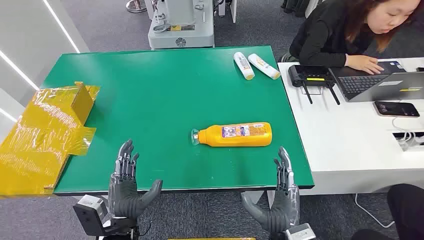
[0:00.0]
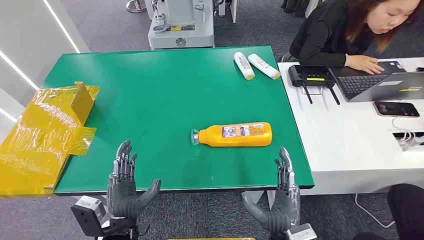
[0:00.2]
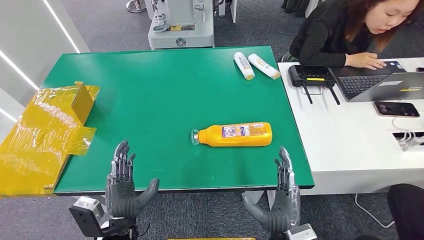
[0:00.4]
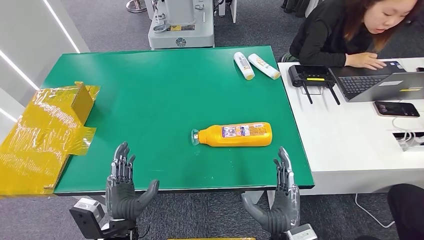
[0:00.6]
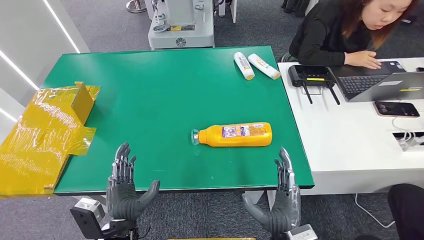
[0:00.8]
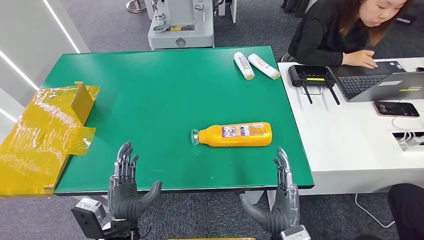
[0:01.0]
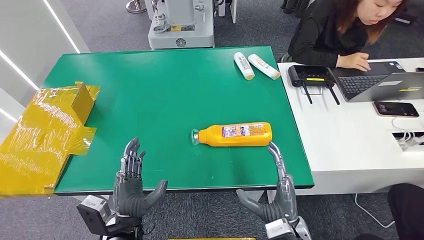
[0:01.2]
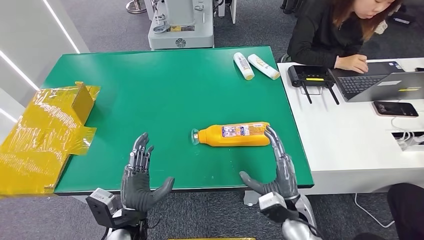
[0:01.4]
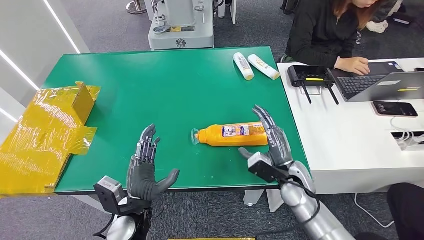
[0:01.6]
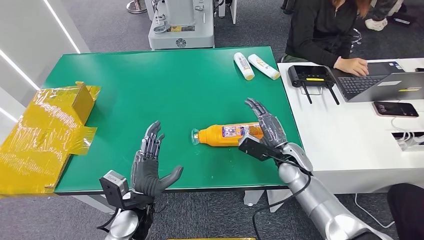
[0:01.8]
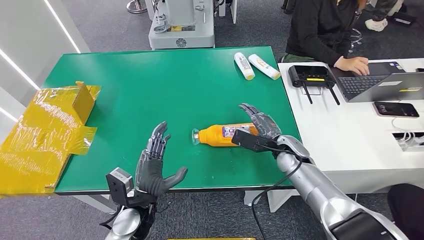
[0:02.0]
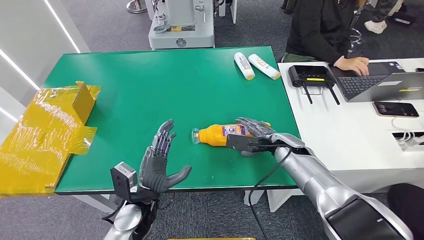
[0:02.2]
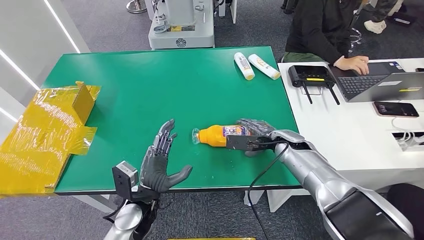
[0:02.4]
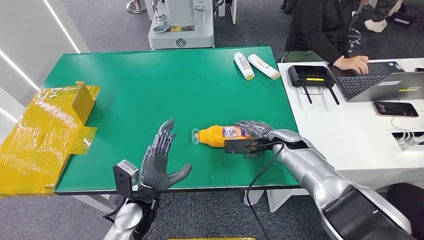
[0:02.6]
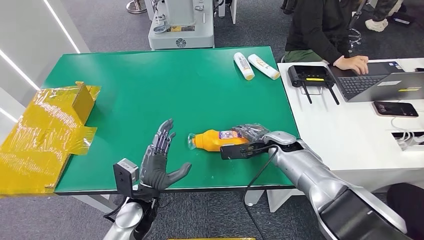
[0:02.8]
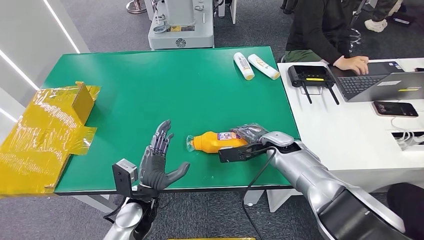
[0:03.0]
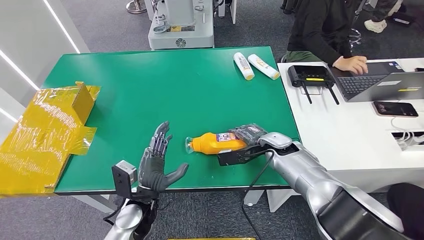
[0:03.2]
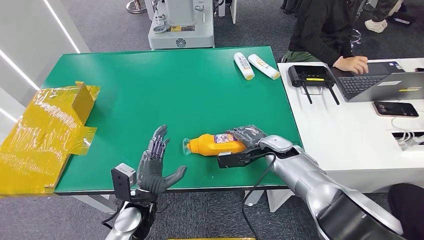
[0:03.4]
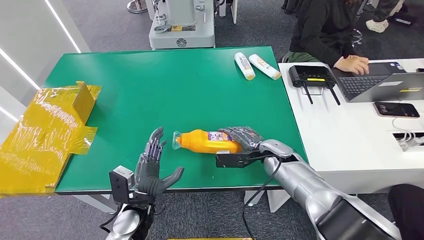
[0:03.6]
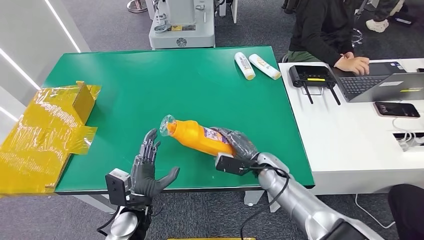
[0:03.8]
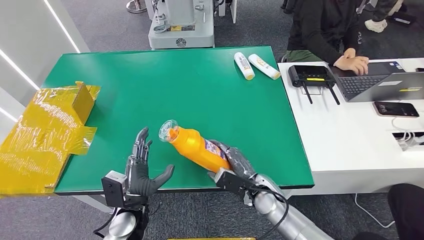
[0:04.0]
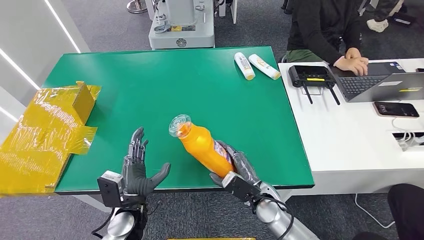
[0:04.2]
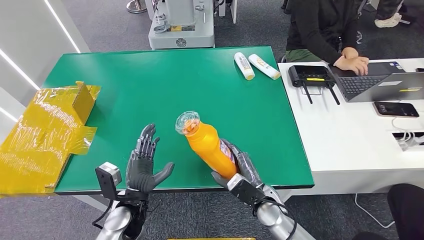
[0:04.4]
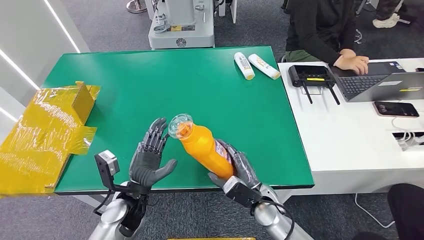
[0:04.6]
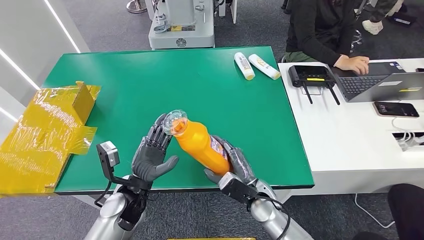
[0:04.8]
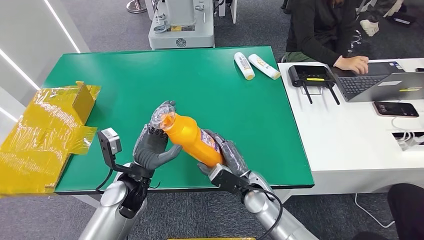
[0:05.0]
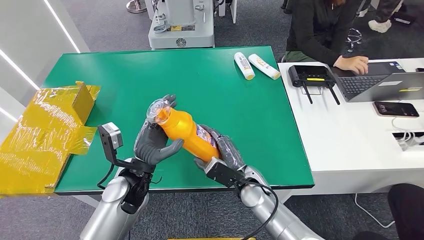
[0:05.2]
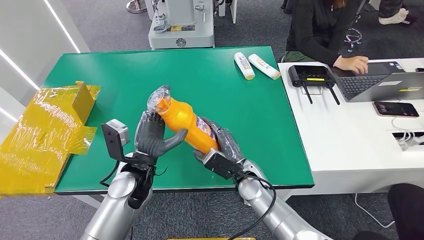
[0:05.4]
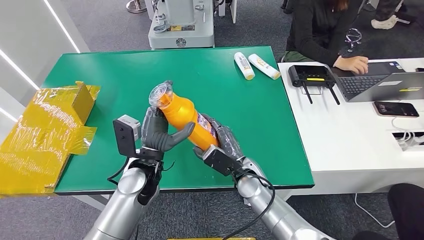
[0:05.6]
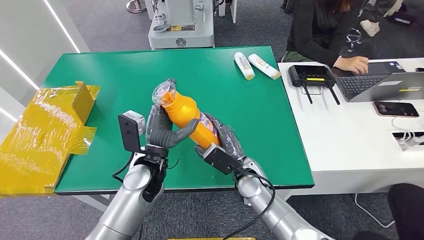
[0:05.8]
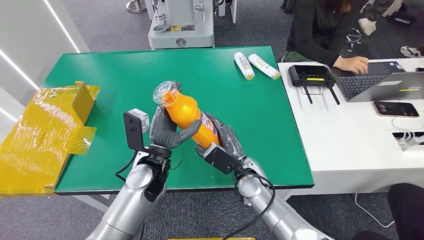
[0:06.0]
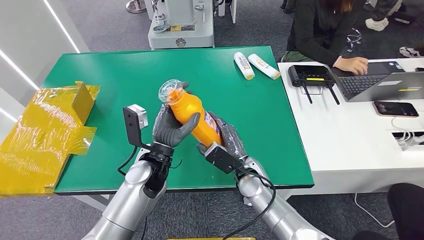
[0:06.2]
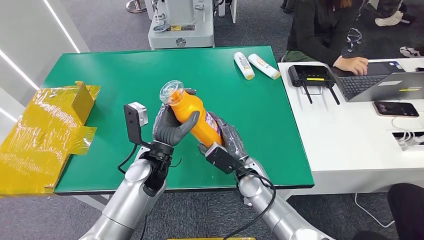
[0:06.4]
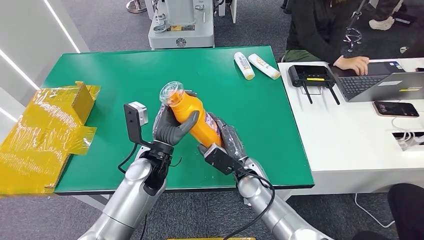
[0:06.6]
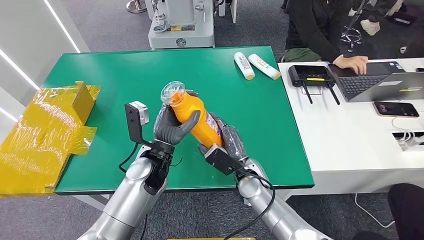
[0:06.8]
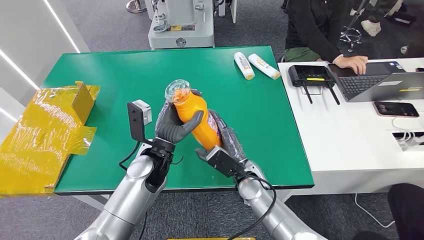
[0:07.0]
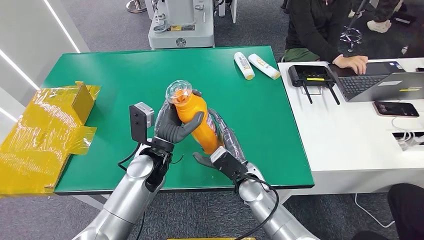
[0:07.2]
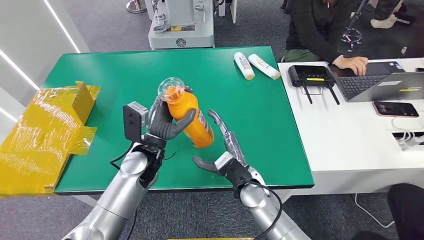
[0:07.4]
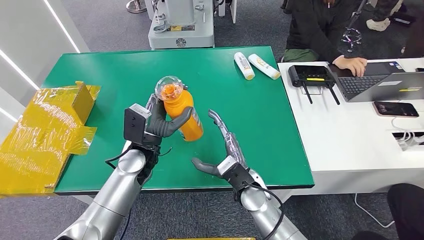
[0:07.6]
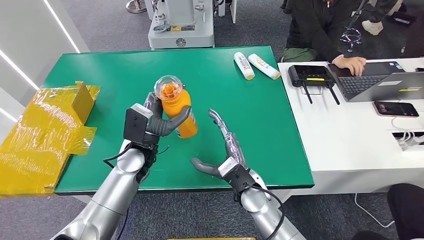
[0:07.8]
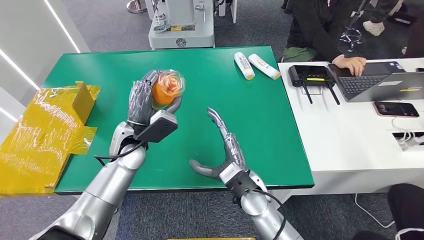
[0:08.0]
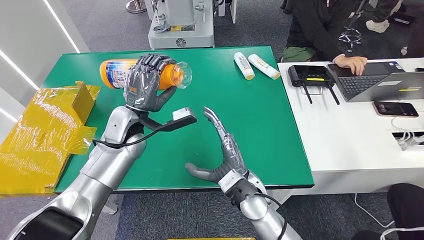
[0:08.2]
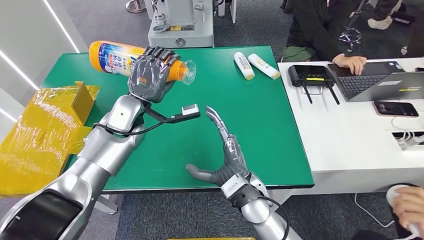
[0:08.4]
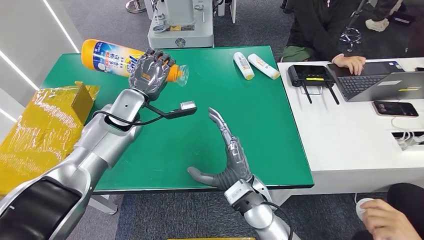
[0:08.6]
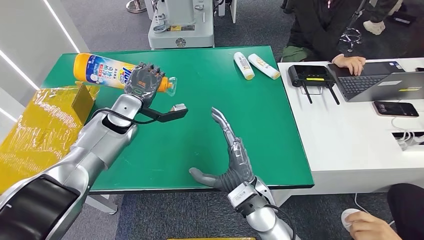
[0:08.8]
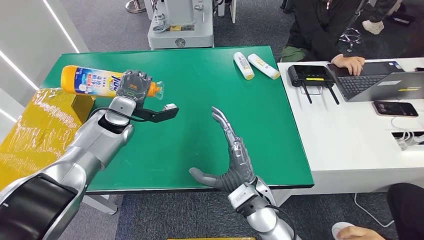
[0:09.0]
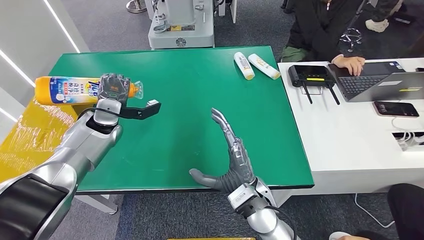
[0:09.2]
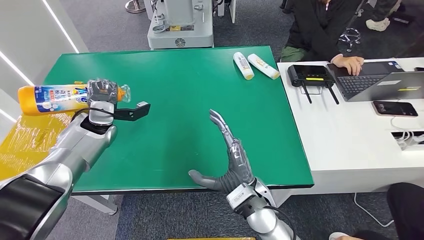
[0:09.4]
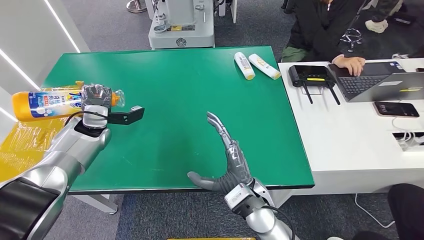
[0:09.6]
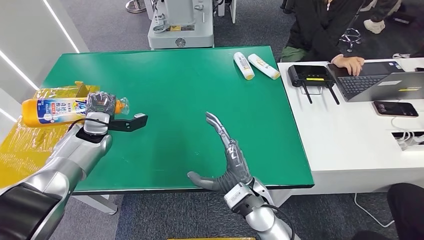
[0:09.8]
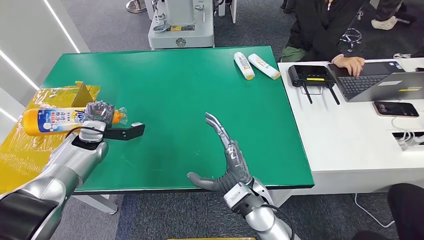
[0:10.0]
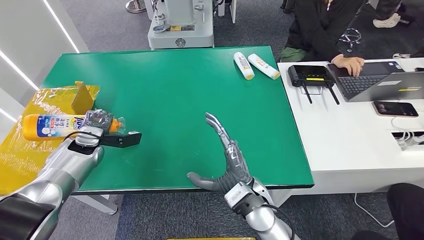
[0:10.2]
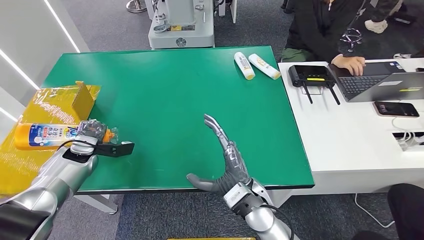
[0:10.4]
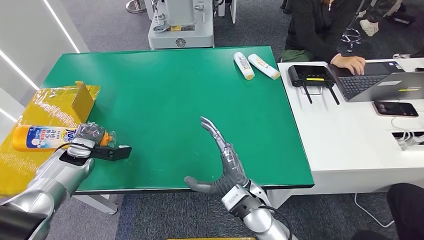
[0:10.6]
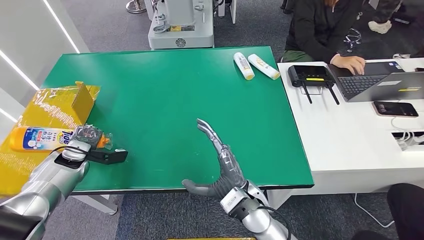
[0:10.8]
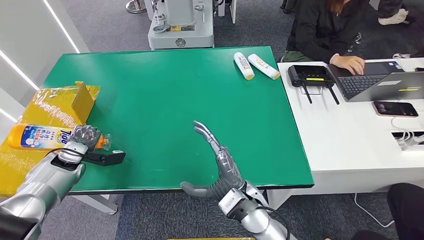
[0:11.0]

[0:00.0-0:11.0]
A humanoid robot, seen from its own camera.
Step, 0:00.0 to 0:04.2: Pick up the bottle from the table.
0:01.6 to 0:03.2: The right hand shifts about 10 cm forward.
0:03.2 to 0:04.8: The right hand travels backward, downward and to the left by about 15 cm.
0:04.8 to 0:06.2: The left hand is displaced forward, to the right and upward by some 10 cm. Meanwhile the right hand moves about 5 cm.
0:06.2 to 0:07.8: The left hand moves some 5 cm.
0:09.4 to 0:11.0: The left hand is displaced to the left, downward and backward by some 15 cm.

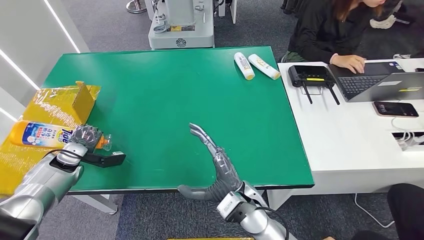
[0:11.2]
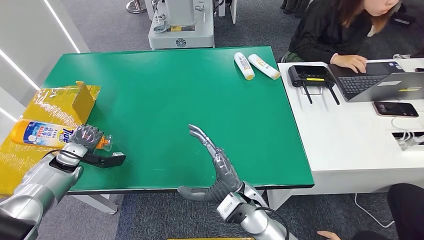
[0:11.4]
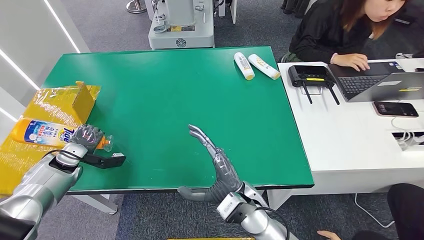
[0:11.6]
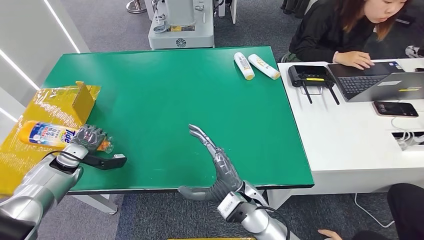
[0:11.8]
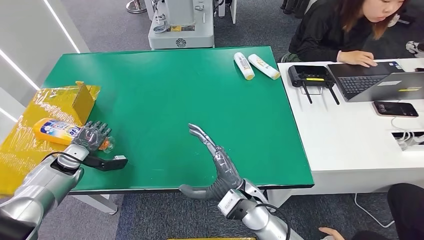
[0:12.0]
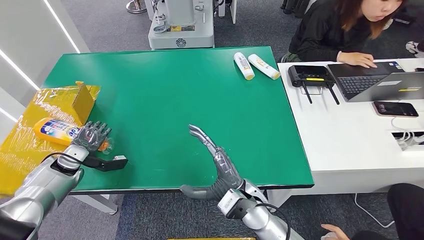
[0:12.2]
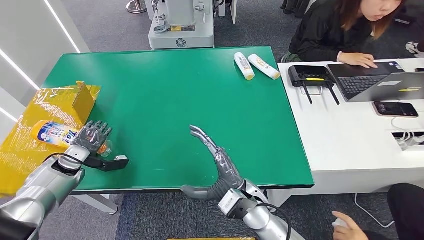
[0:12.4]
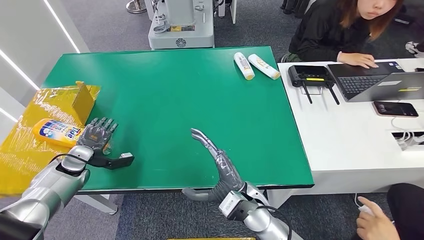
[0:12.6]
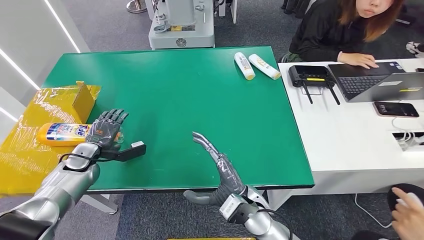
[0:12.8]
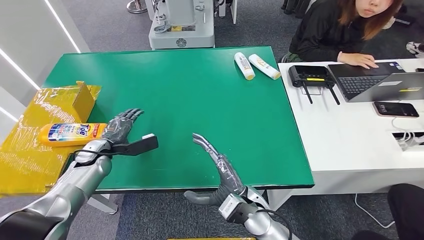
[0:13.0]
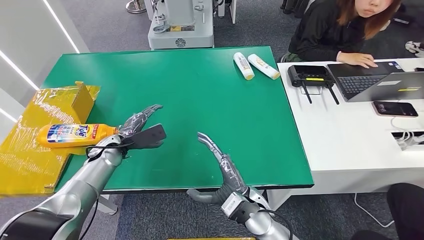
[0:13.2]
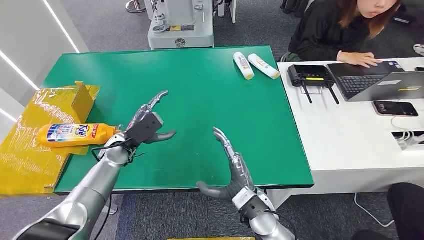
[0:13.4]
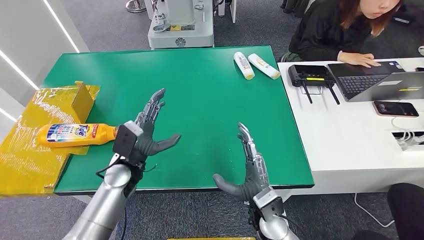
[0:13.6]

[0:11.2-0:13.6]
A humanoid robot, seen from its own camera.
Step, 0:11.2 to 0:13.6: Turn the bottle to the front side.
0:11.2 to 0:12.4: The hands make only small movements.
0:12.4 to 0:13.6: The right hand changes place by some 5 cm; the left hand travels to the right by about 20 cm.

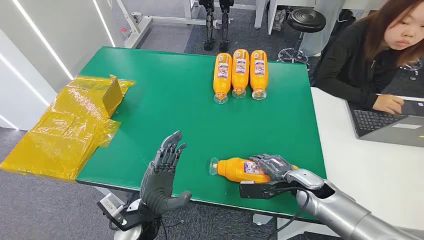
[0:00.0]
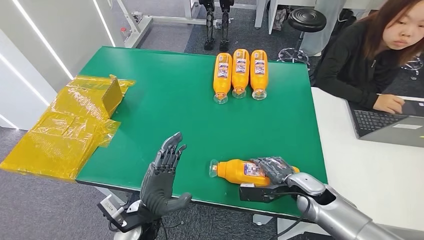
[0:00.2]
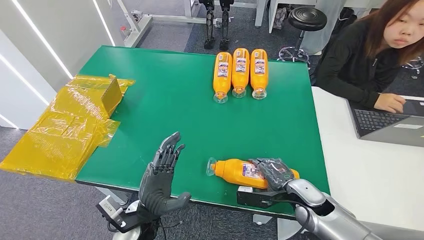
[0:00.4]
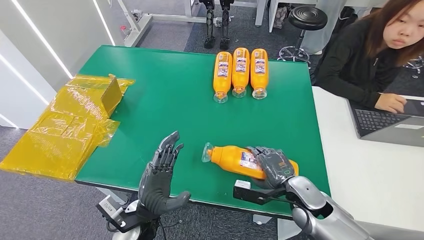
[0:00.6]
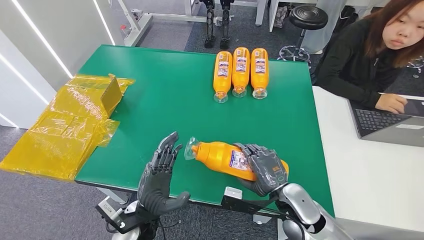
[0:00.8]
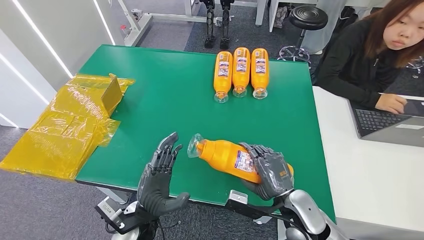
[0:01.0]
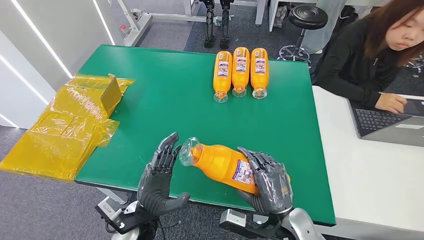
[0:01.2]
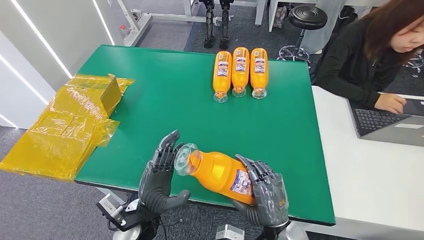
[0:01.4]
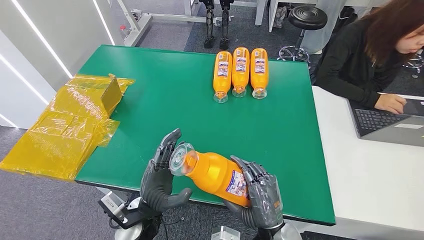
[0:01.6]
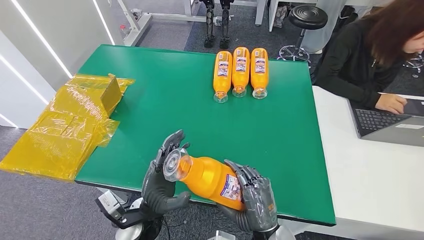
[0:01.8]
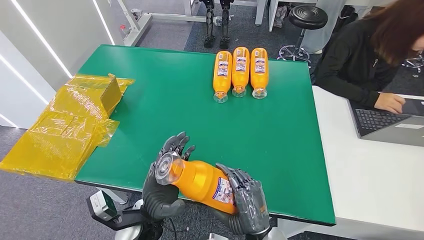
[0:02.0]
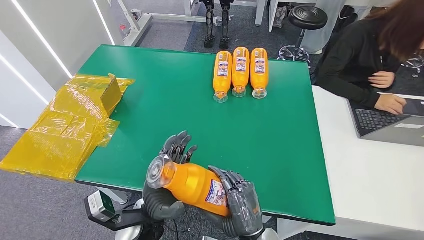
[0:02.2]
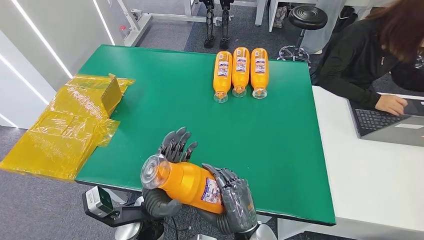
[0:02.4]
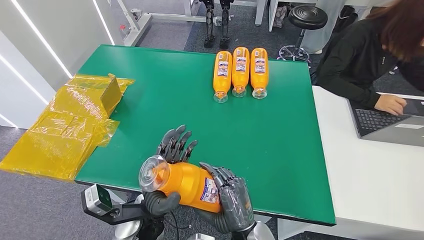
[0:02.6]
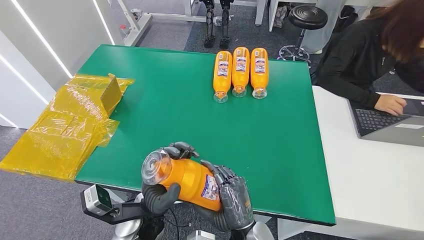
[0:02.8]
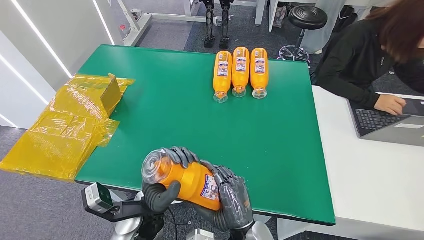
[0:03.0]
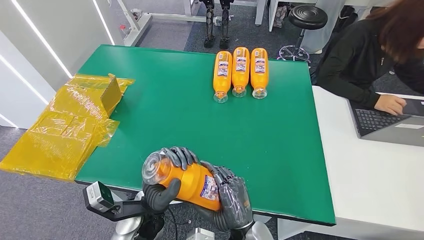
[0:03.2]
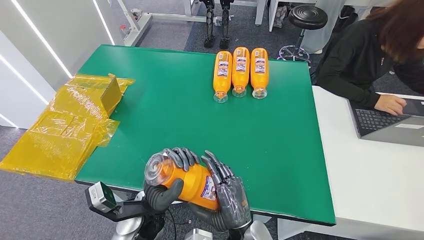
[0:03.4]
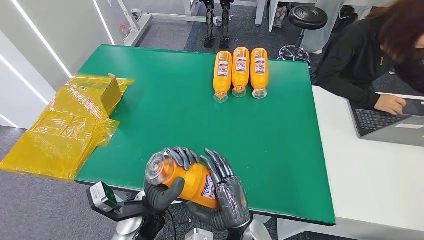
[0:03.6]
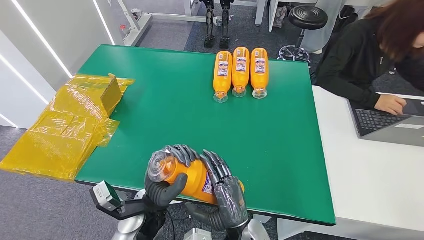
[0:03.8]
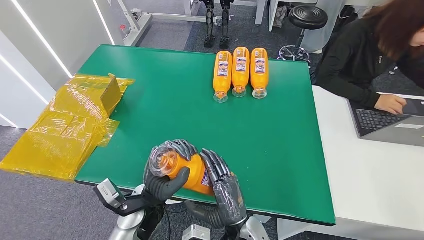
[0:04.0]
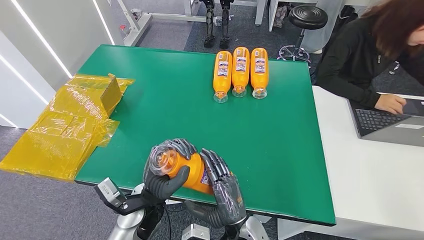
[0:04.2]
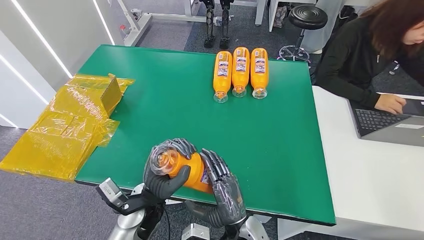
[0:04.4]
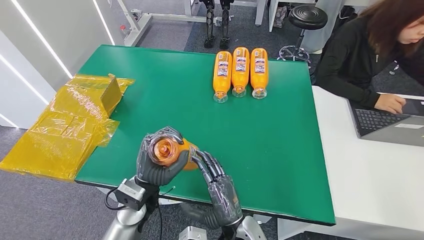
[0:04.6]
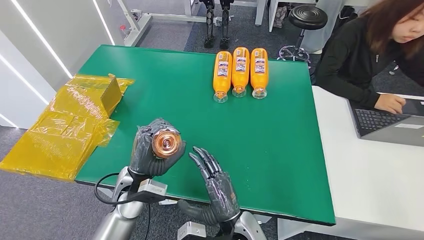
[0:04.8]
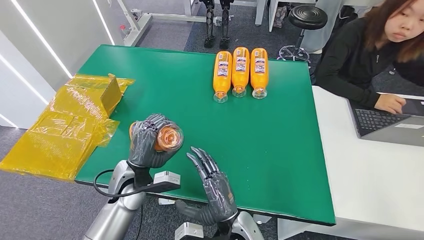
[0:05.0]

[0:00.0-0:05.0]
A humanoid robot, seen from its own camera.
Step, 0:00.0 to 0:03.2: Pick up the bottle from the table.
0:01.6 to 0:03.4: The right hand travels to the left by some 5 cm.
0:03.4 to 0:05.0: The left hand heads forward and to the left, covering approximately 10 cm.
